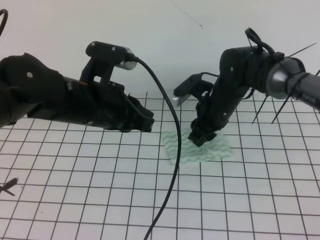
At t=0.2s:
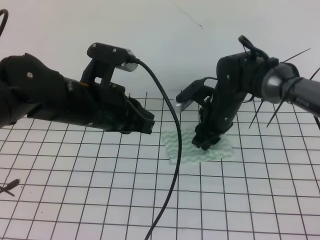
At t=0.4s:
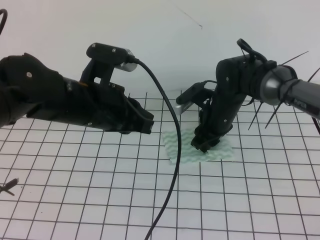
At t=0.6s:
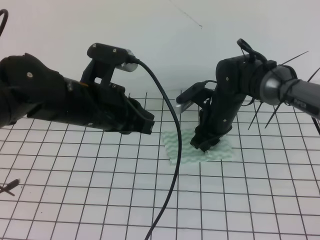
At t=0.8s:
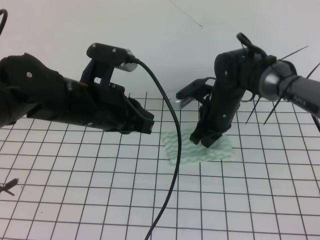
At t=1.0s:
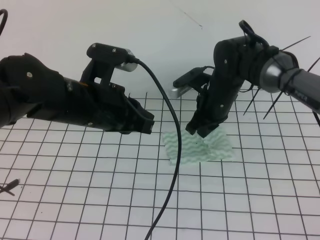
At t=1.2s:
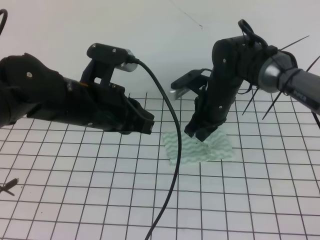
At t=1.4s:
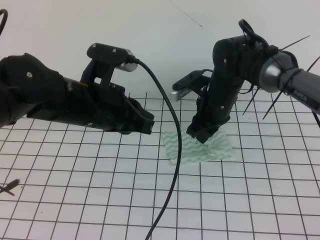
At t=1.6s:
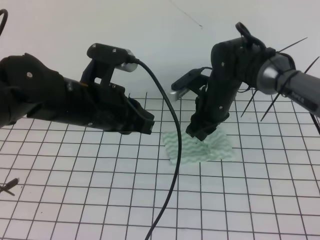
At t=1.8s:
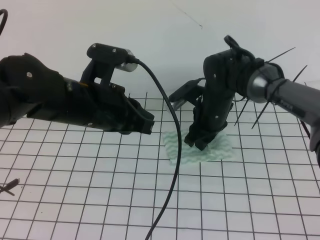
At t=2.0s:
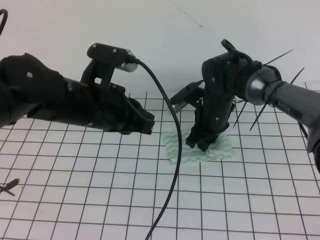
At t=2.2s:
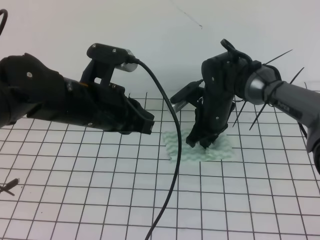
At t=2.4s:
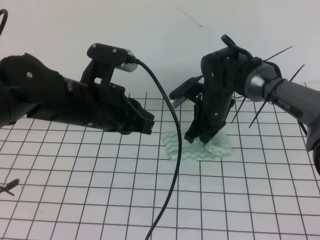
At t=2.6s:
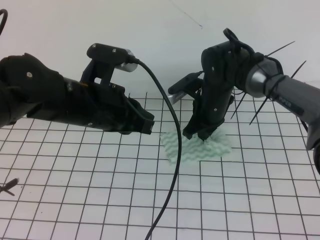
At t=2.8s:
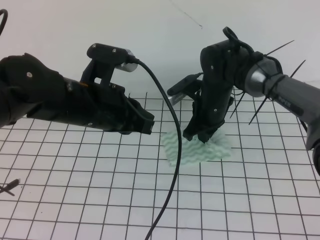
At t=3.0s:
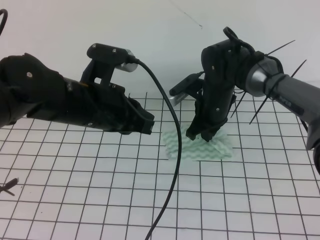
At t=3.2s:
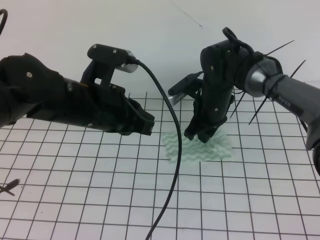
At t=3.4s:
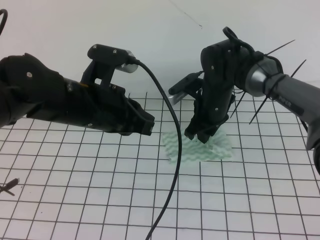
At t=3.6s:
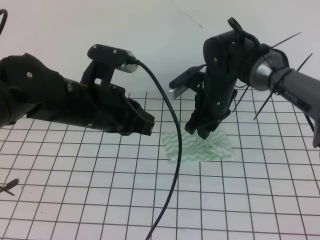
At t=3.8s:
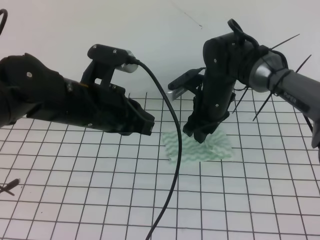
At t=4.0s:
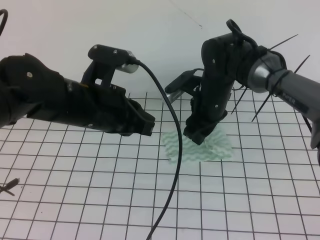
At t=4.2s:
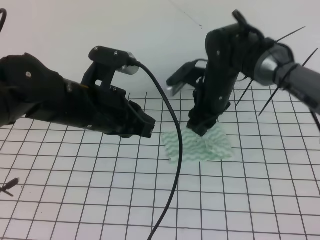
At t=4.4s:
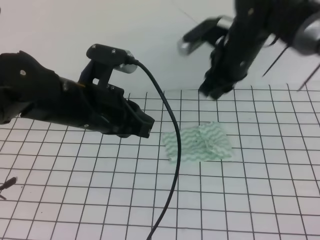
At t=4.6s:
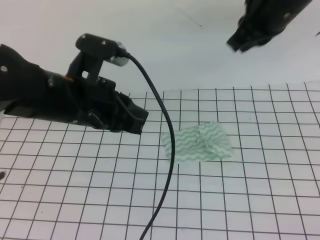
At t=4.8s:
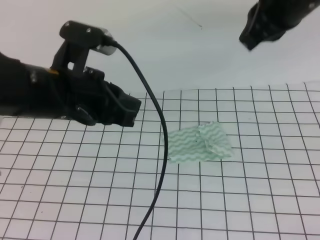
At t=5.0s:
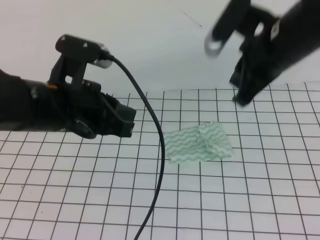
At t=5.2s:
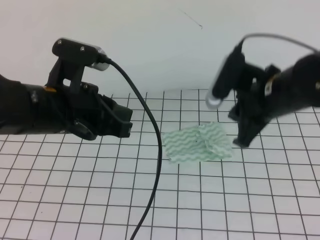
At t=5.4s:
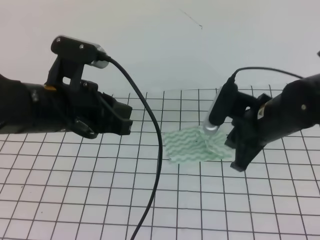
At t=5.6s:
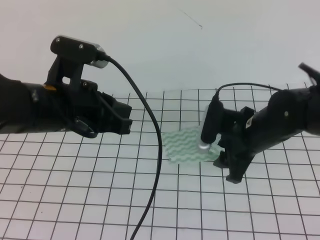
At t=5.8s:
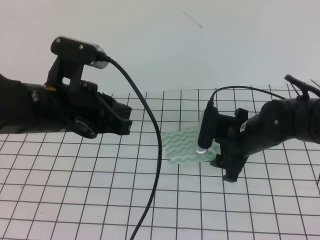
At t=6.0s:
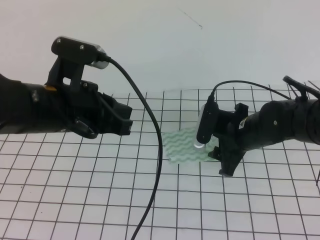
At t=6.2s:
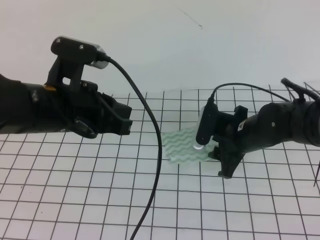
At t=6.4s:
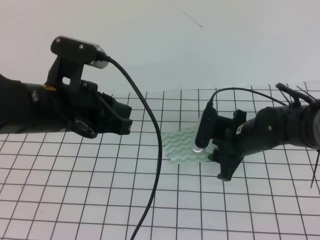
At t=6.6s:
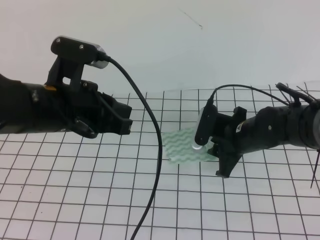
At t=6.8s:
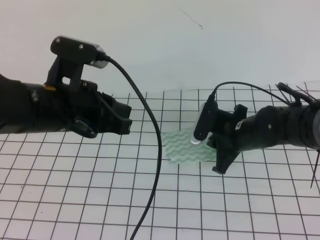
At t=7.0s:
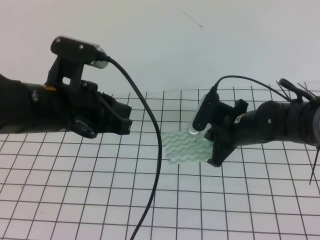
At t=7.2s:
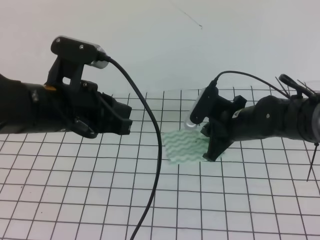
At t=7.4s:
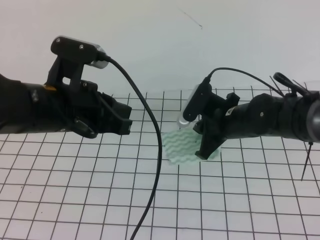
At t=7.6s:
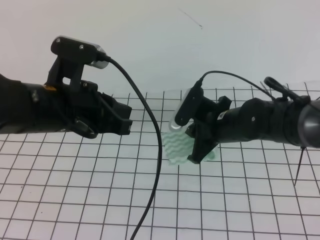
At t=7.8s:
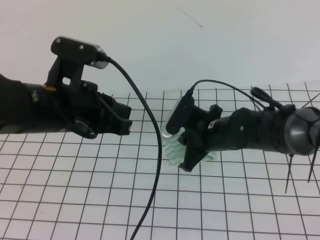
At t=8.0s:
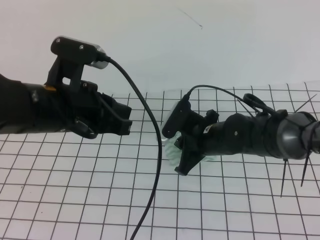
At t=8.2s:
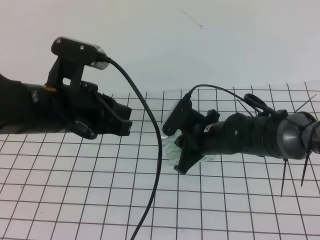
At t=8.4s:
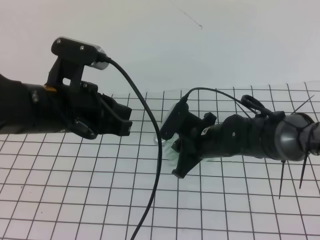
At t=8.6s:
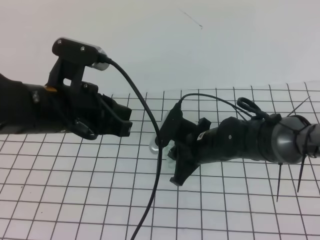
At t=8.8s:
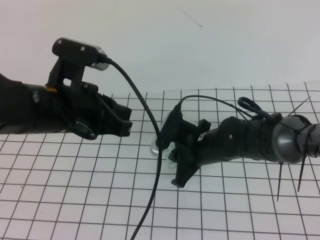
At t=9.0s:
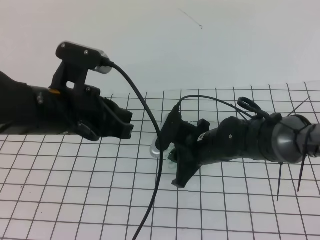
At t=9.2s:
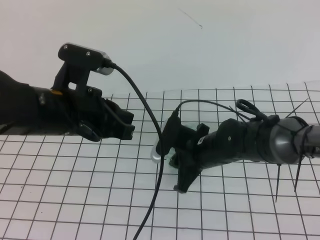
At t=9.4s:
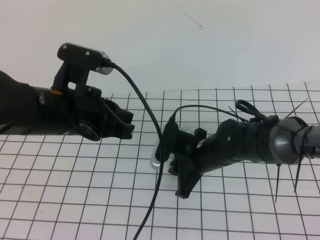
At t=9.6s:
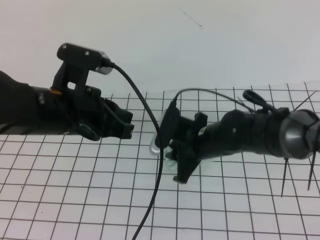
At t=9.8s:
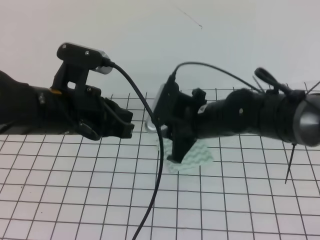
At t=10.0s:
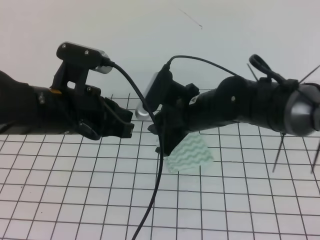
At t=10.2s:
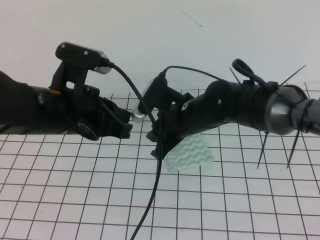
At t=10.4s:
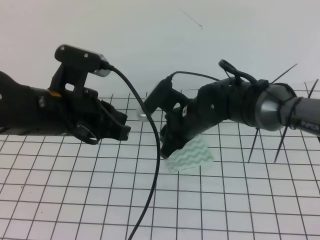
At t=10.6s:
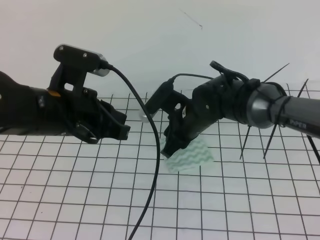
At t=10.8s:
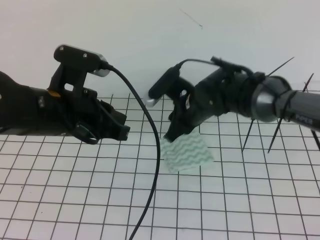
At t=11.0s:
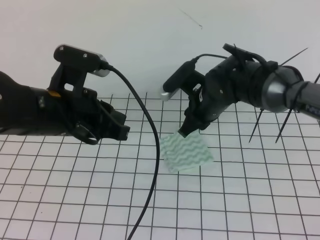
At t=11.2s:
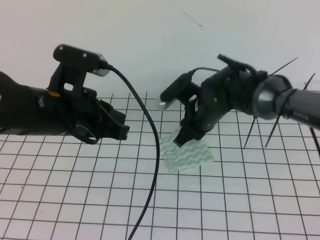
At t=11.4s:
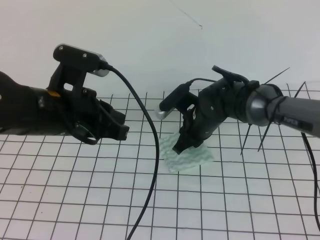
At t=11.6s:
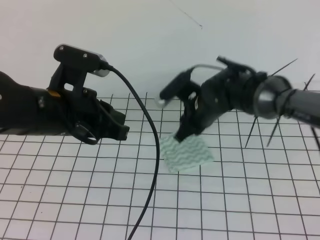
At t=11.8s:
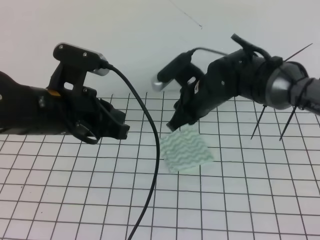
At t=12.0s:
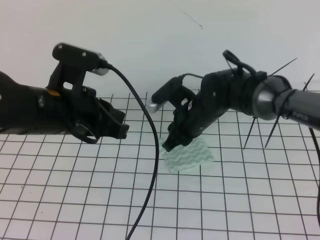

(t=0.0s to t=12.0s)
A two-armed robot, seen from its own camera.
t=0.0s - t=1.6s: The right gripper closes and opens again.
t=1.6s - t=3.0s: The right gripper closes up.
t=3.0s - t=4.4s: The right gripper travels upward by some 10 cm, and opens up.
t=4.4s - t=6.0s: The right gripper shifts some 15 cm downward and backward, and opens.
t=6.0s - t=7.6s: The right gripper closes its fingers.
t=7.6s - t=9.0s: The right gripper moves about 5 cm.
t=9.0s - t=10.4s: The right gripper moves some 5 cm, and opens.
t=10.4s - t=12.0s: The grippers make only small movements.

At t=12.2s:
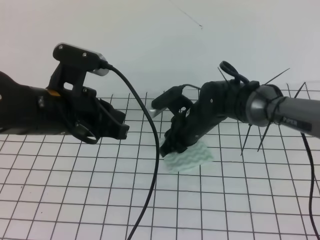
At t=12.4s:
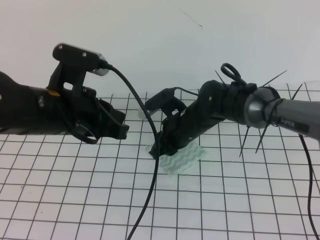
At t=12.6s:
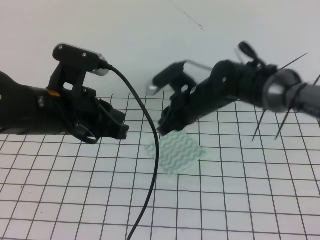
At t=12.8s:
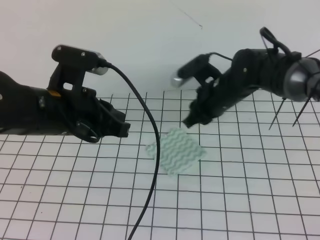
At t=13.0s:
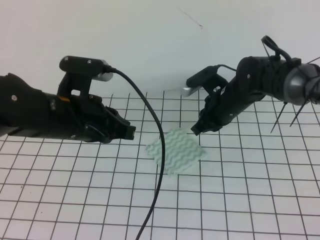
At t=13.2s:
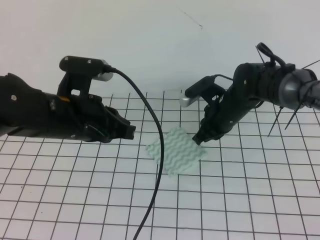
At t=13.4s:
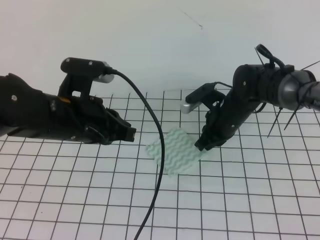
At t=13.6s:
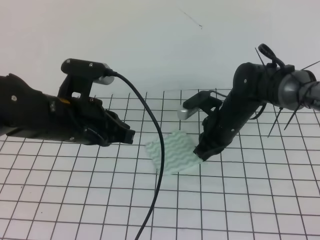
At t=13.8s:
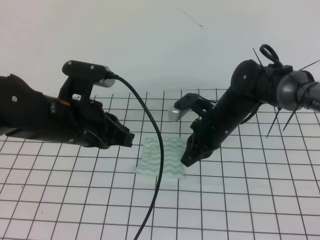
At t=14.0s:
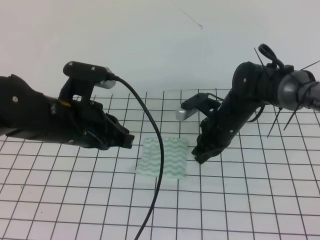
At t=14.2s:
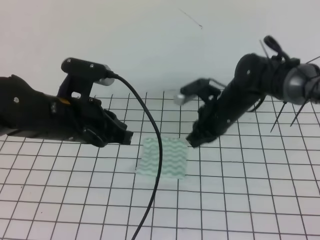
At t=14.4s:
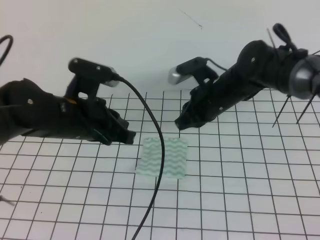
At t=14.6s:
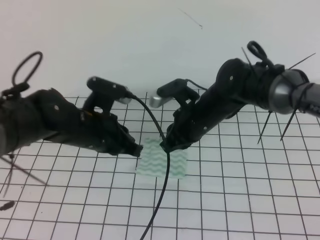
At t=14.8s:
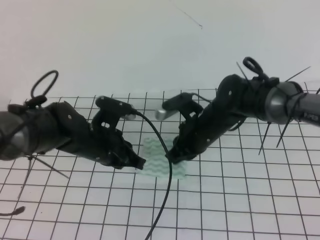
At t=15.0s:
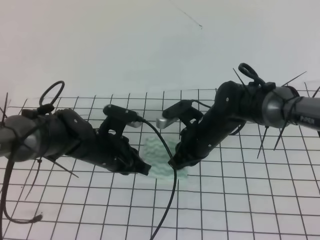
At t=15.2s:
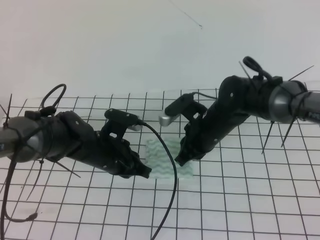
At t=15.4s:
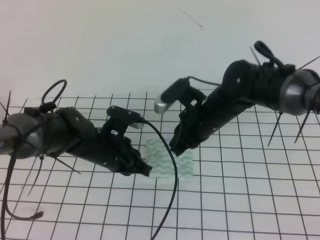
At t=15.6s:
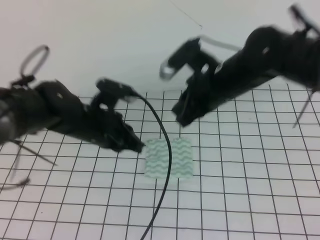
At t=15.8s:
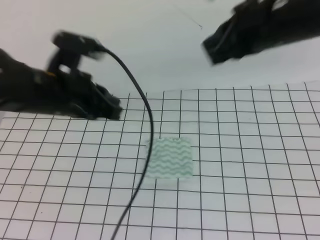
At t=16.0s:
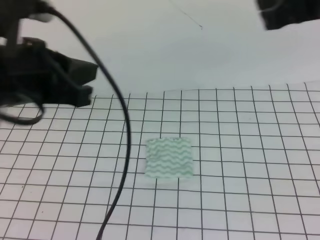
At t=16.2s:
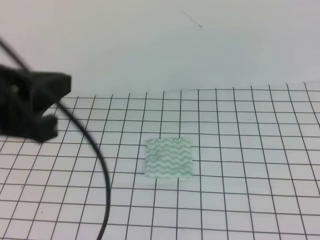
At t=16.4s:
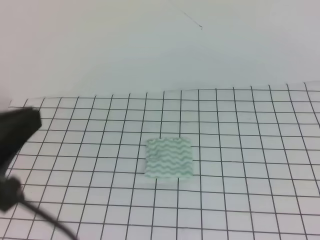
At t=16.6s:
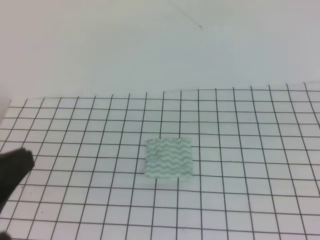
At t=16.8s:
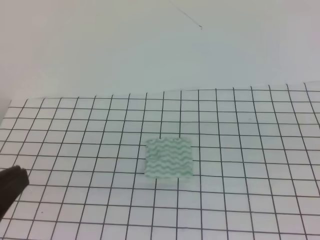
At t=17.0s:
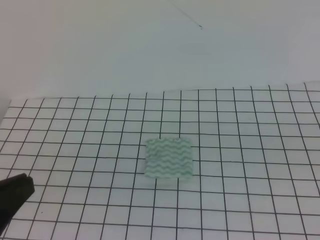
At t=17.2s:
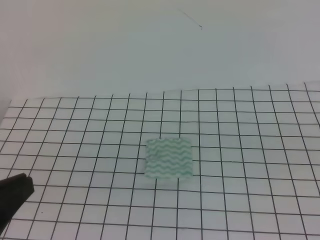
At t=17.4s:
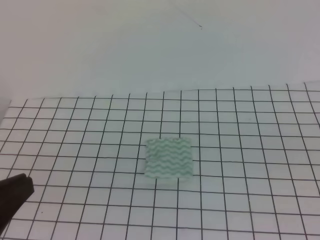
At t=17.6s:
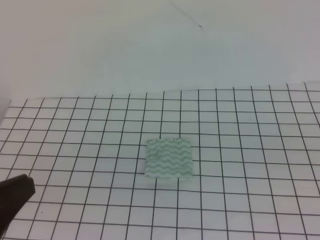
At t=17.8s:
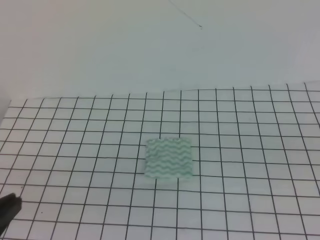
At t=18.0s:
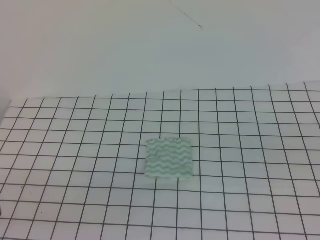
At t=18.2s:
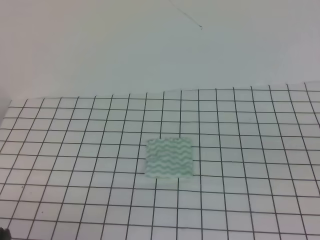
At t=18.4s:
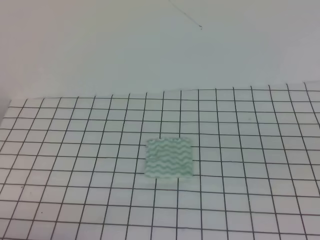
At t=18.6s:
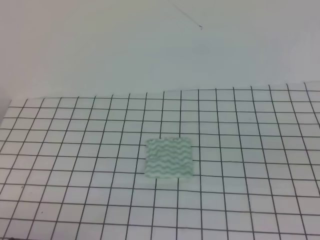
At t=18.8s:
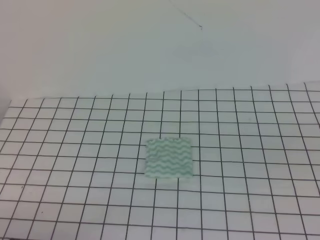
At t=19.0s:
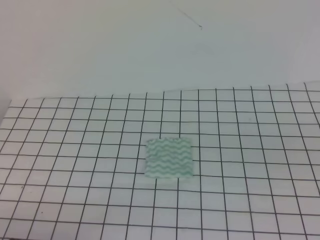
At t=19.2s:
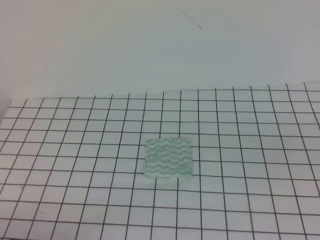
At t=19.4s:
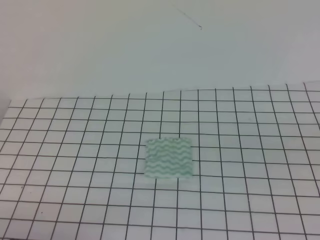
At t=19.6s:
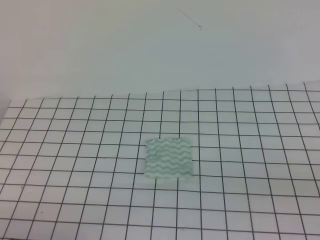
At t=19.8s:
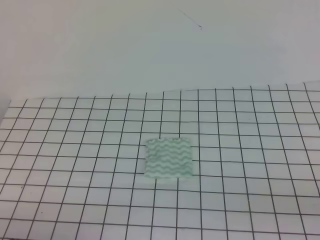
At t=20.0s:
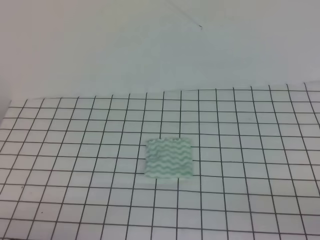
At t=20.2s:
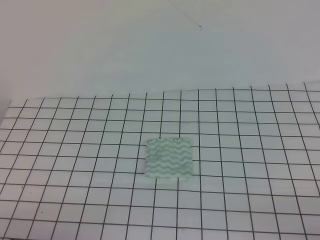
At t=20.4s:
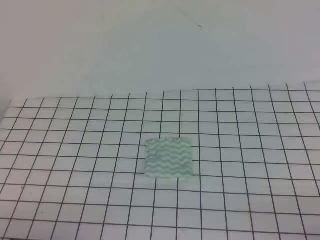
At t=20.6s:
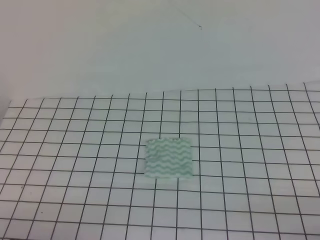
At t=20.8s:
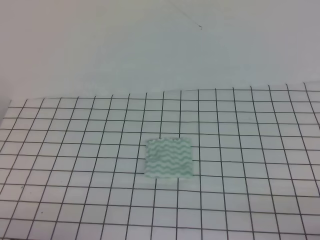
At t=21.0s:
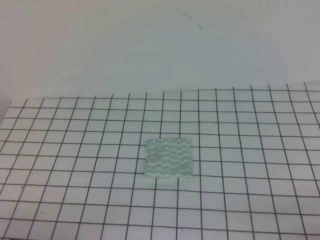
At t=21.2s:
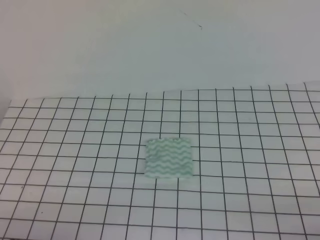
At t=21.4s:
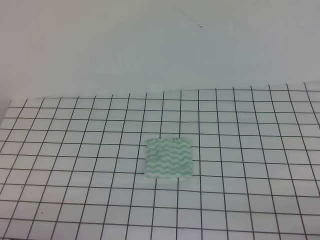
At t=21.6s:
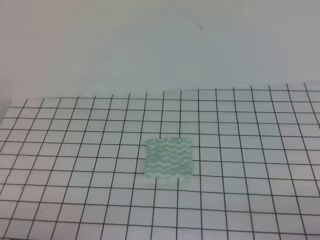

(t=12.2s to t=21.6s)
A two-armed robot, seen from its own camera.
Step, t=12.2s - t=21.6s: Fold the towel.
t=12.2s - t=13.8s: The right gripper goes roughly 5 cm to the right, and closes.
t=13.8s - t=15.4s: The right gripper swings up and down, about 5 cm each way, with 2 reversals; the left gripper travels downward and forward by about 15 cm.
t=15.4s - t=17.0s: The right gripper travels backward, to the right and upward by approximately 40 cm. The left gripper shifts roughly 35 cm backward, upward and to the left.
t=17.0s - t=18.4s: The left gripper moves downward, about 15 cm.
